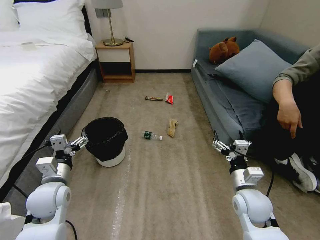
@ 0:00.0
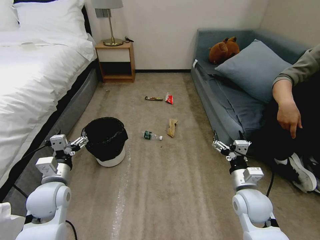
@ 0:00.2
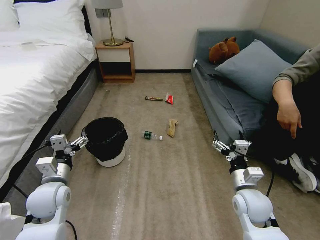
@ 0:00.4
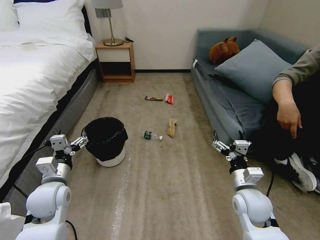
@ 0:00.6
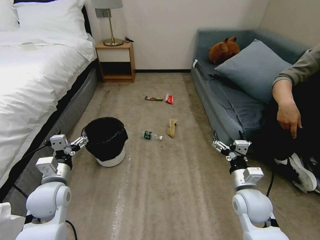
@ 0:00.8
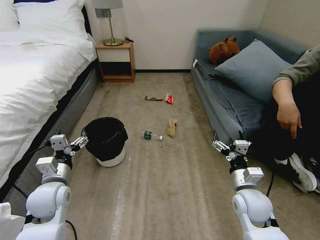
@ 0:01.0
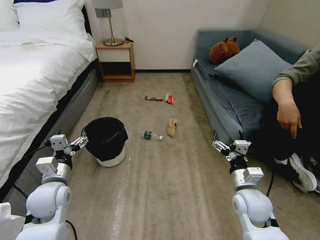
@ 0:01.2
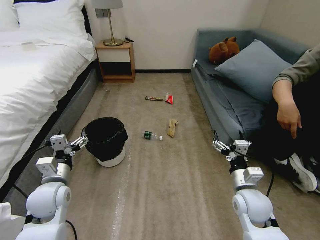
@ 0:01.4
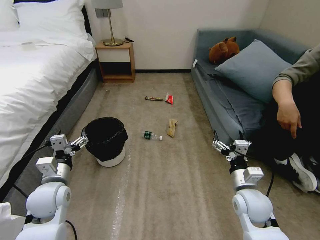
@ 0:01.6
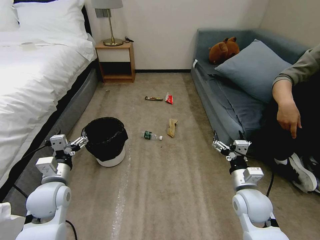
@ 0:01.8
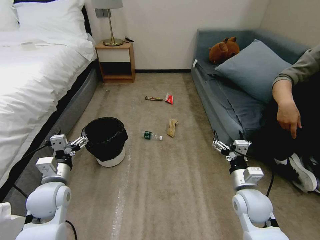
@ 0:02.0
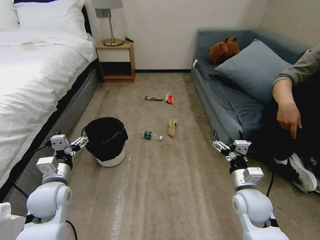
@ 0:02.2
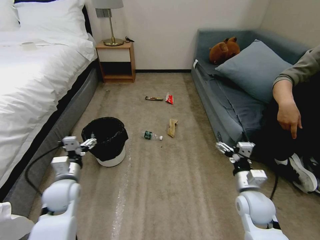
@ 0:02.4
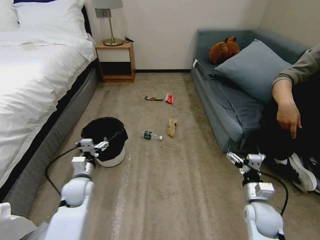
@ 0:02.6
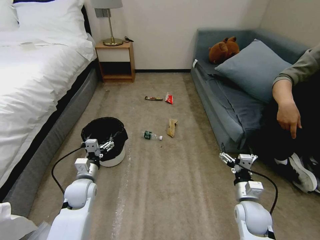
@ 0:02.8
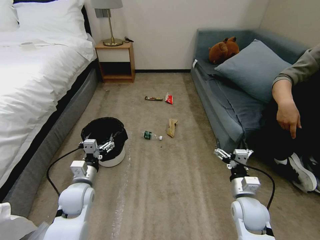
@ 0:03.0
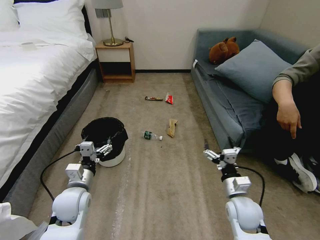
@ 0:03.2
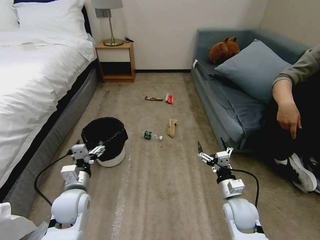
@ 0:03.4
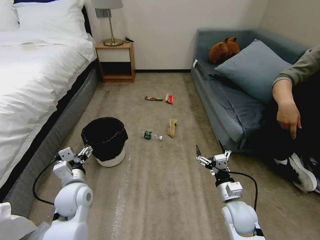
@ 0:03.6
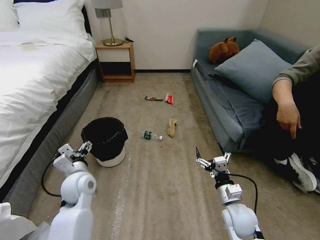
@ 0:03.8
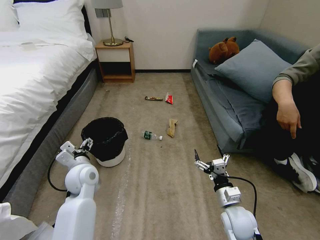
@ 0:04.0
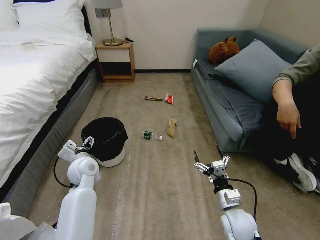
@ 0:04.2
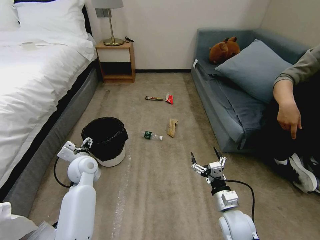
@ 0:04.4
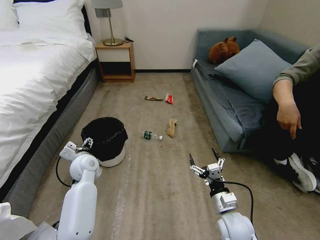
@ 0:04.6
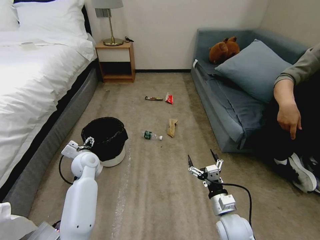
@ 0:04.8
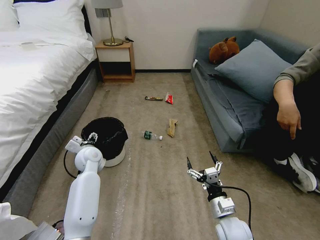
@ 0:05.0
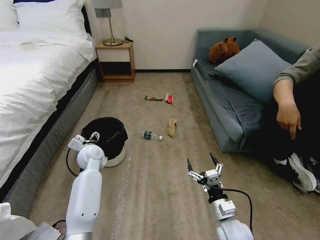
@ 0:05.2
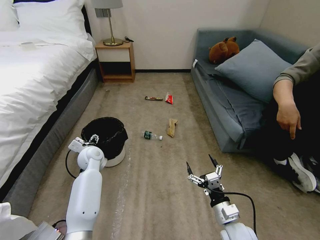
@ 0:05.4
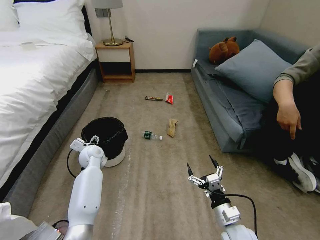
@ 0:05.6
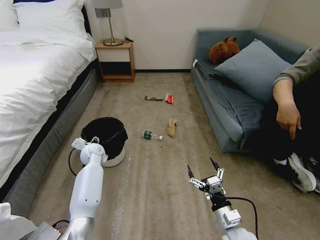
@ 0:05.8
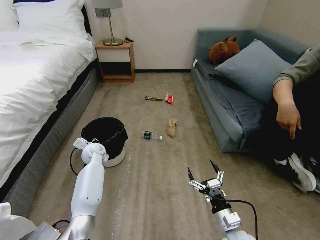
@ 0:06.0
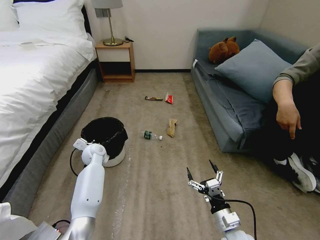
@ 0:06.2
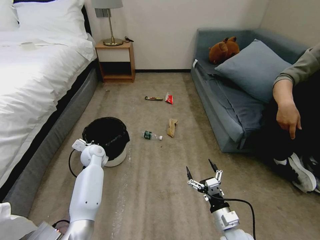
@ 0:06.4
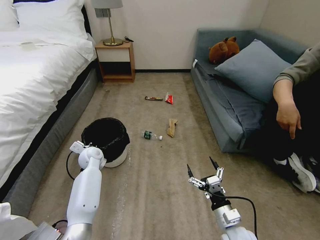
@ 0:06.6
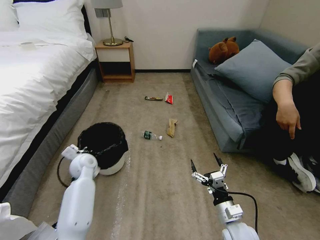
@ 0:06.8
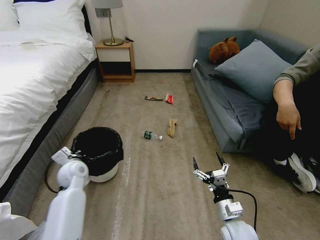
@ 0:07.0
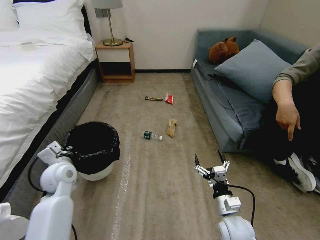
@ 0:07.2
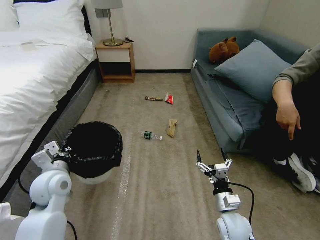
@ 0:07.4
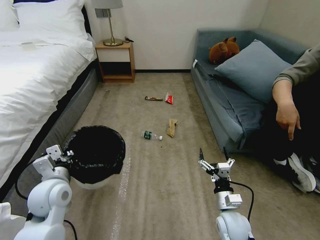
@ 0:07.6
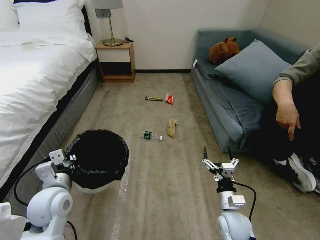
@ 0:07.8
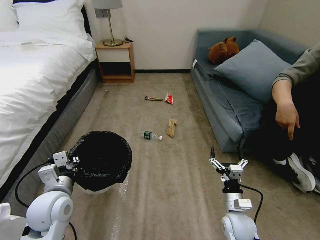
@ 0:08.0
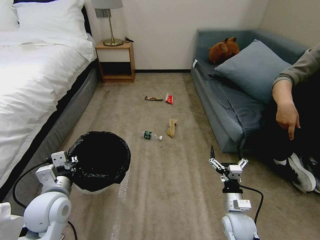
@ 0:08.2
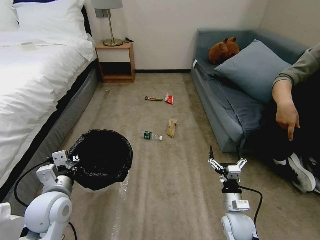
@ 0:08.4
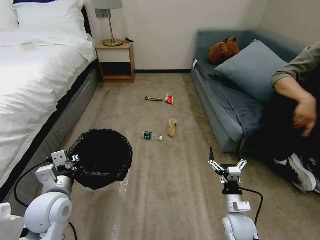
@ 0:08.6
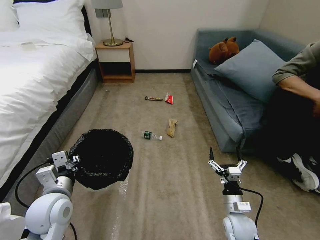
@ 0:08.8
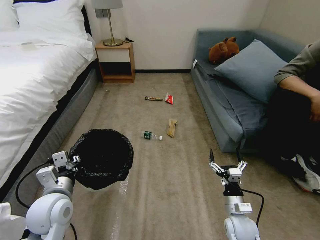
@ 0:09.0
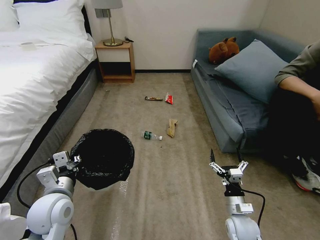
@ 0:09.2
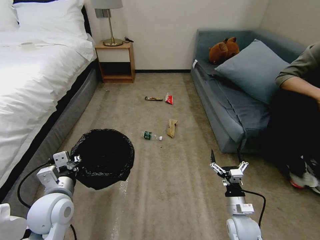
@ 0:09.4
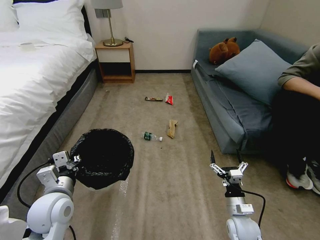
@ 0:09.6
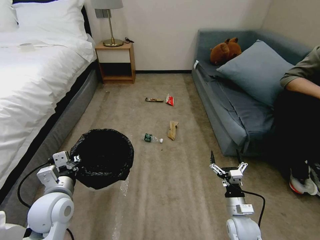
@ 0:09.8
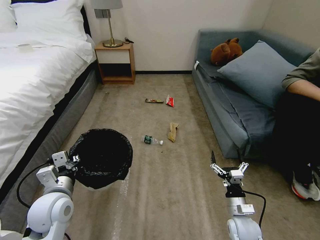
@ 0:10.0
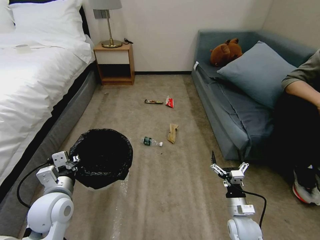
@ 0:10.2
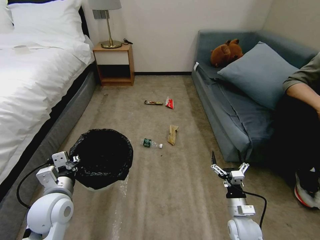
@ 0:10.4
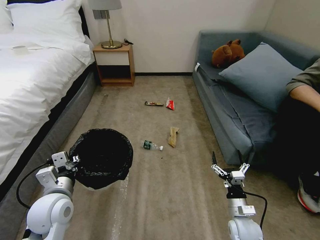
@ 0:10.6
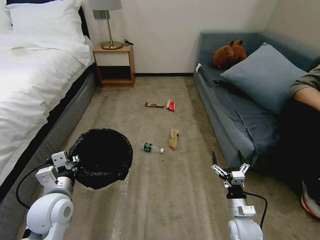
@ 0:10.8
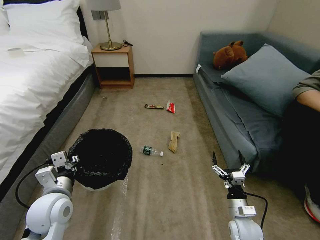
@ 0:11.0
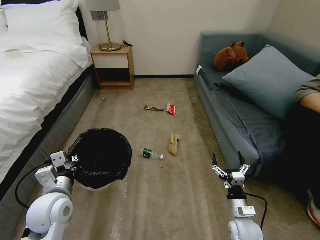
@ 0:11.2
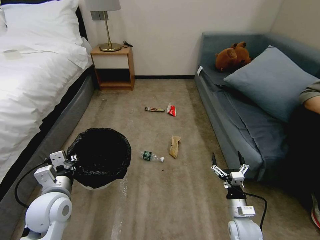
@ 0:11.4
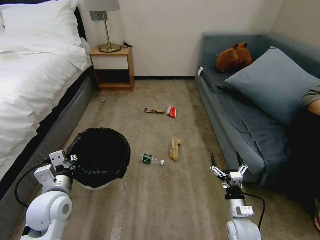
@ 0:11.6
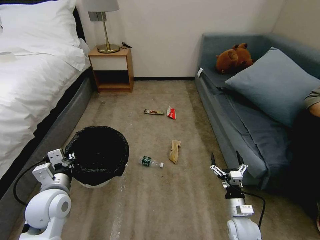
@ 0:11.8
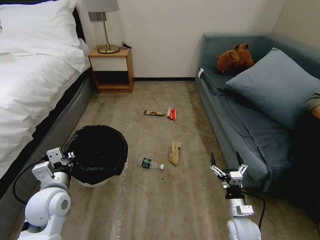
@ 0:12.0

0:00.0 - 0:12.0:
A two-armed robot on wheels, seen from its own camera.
Task of the whole recording: Pick up the trash bin, then pick up the garbage on the floor and place it into the trash bin.
0:01.6 - 0:03.0: The left gripper goes some 5 cm to the right and downward.
0:03.0 - 0:04.4: The right gripper shifts by about 5 cm; the left gripper travels forward by roughly 10 cm.
0:04.4 - 0:06.0: The right gripper goes about 5 cm backward; the left gripper goes roughly 10 cm forward and downward, and closes its fingers.
0:06.0 - 0:07.6: The right gripper shifts some 5 cm forward; the left gripper moves backward and upward, about 25 cm, and closes.
0:07.6 - 0:09.0: The grippers stay close to where they were, moving slightly.
0:09.0 - 0:10.4: There are only small adjustments of the grippers.

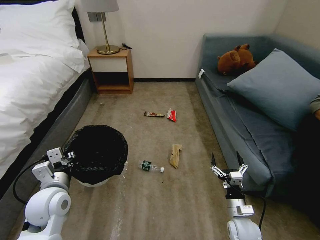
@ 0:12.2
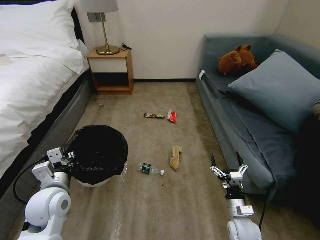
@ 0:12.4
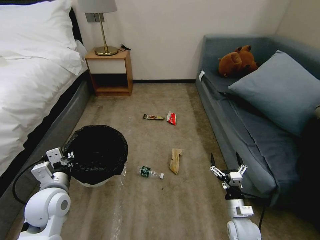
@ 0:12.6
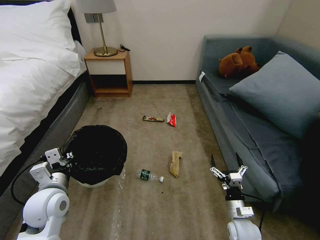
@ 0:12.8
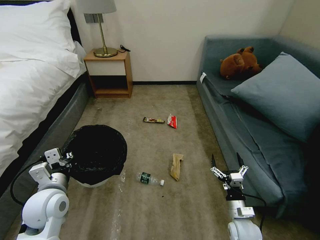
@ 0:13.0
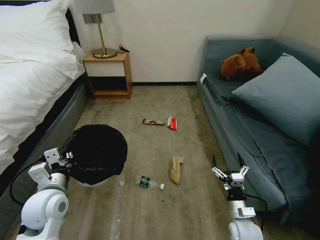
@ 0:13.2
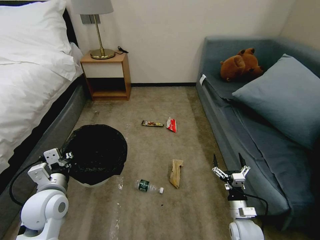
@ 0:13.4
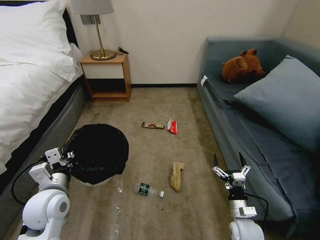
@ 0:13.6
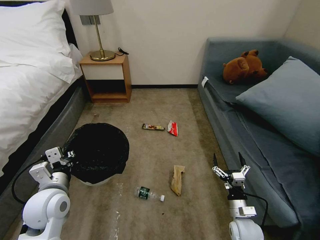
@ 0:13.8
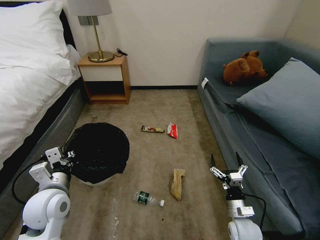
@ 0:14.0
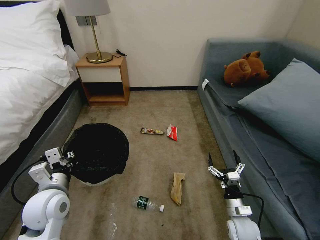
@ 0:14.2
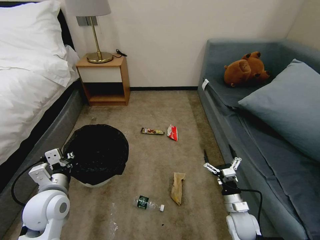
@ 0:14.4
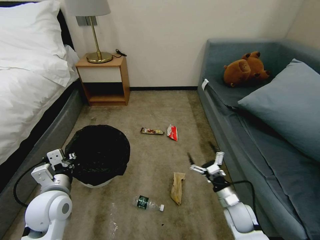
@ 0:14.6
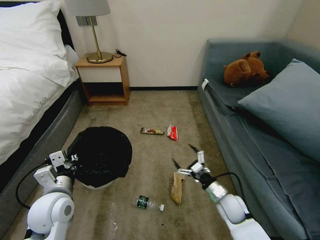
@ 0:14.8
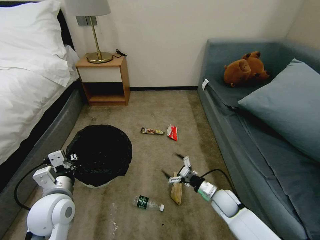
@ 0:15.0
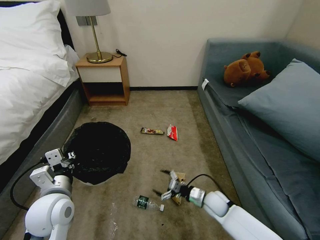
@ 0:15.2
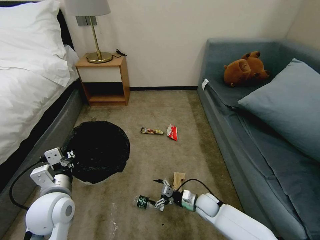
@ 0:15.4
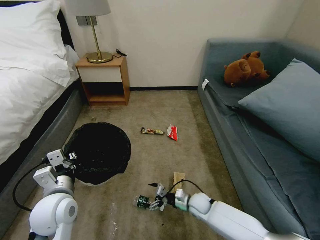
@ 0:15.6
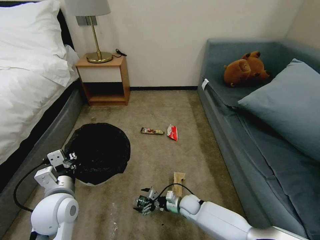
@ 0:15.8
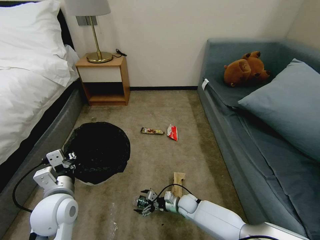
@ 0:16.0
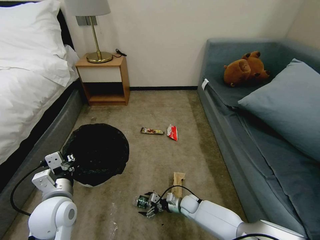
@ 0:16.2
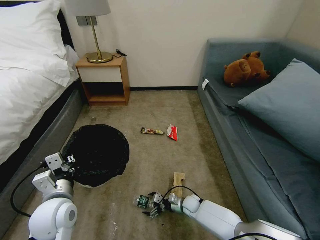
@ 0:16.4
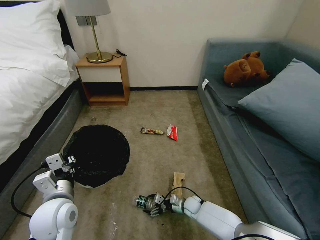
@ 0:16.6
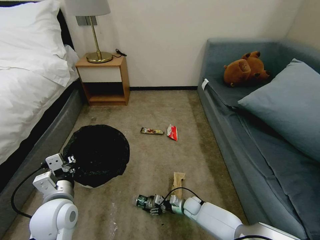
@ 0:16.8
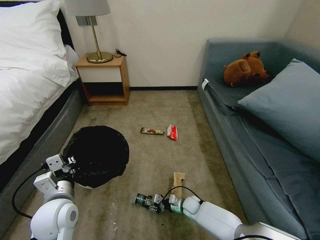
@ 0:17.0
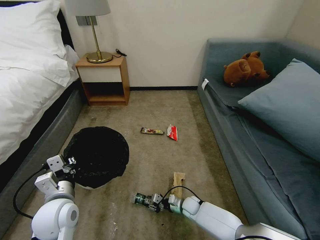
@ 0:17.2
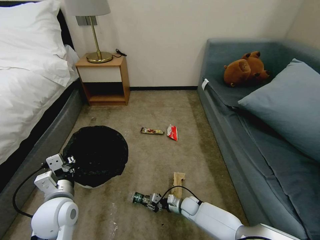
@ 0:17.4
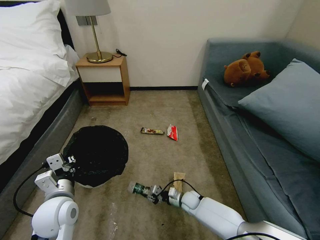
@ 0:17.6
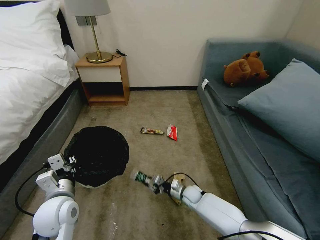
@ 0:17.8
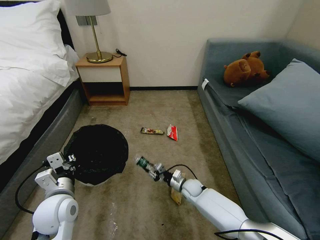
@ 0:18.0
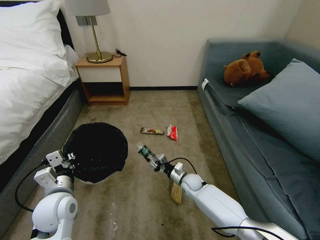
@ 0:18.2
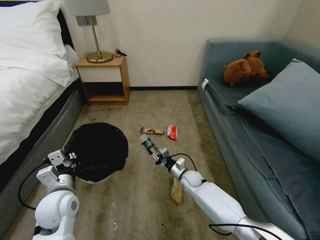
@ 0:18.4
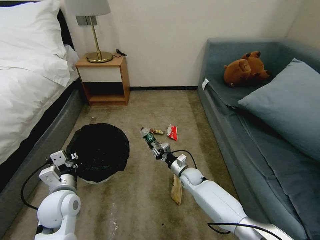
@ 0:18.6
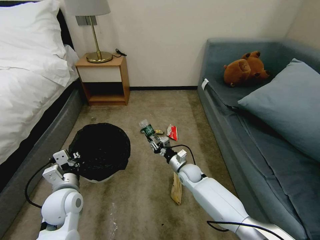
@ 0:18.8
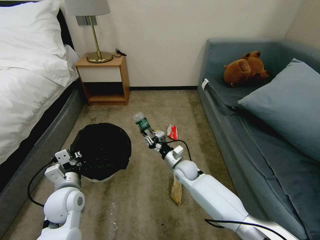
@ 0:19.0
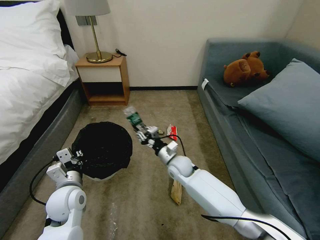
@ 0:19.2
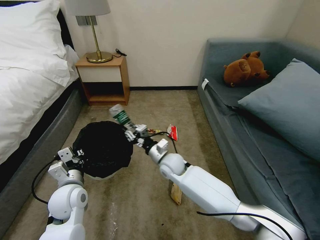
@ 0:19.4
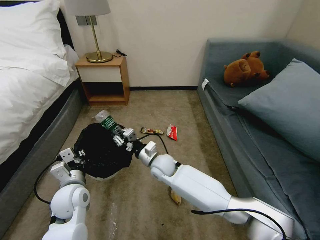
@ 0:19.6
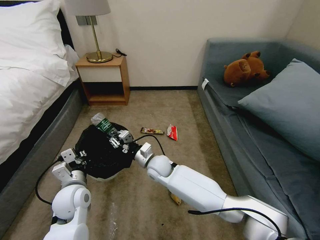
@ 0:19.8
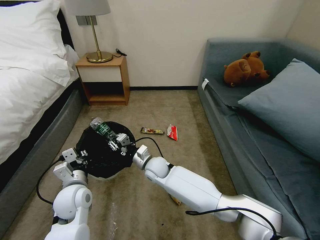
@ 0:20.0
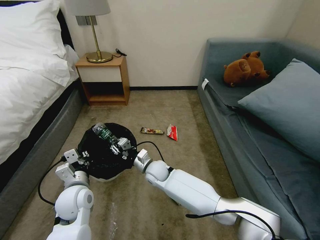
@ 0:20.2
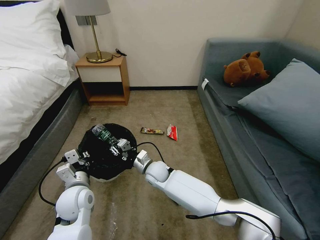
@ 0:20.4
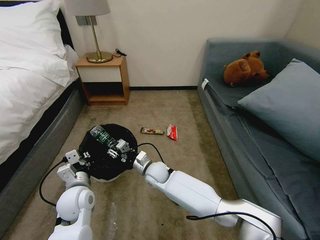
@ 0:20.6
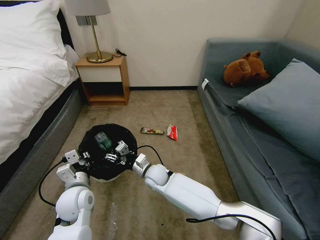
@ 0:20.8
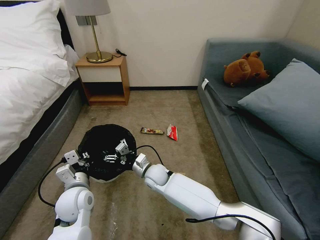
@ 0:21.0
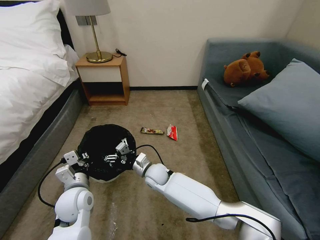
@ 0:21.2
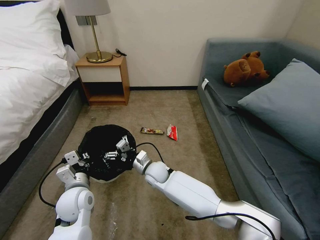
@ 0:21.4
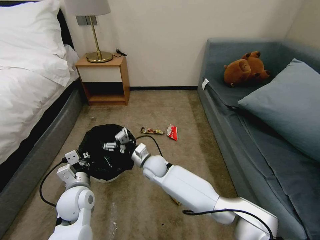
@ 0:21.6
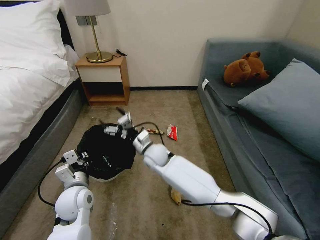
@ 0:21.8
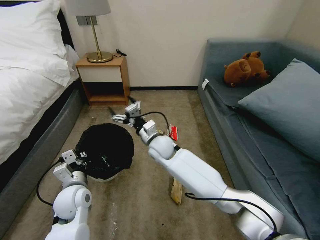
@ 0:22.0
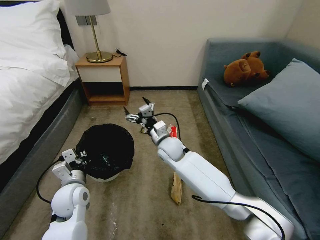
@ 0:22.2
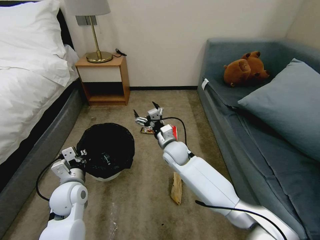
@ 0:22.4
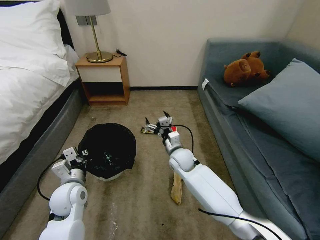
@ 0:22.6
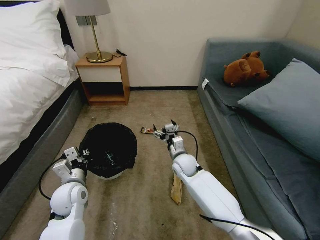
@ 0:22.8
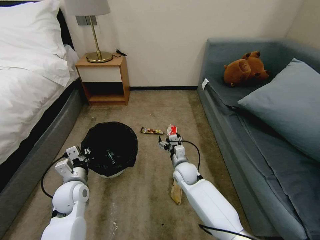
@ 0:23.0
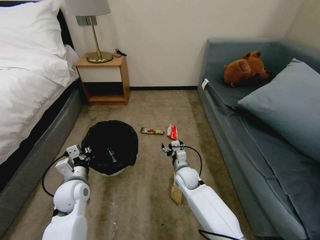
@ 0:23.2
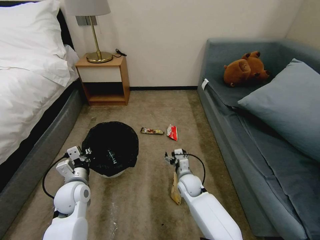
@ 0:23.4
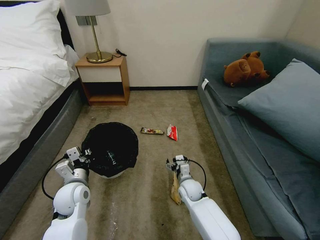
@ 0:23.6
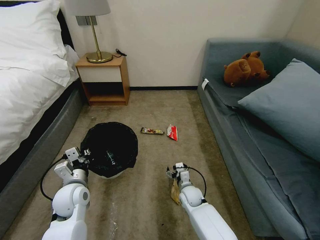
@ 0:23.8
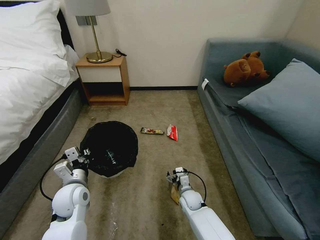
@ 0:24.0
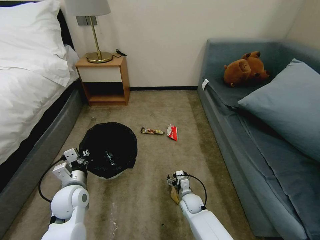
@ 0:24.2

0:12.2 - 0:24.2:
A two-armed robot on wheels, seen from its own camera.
Task of the whole recording: Pick up the trash bin, then pick up the garbage on the floor and place it into the trash bin.
0:13.8 - 0:15.2: The right gripper heads forward and to the left, covering roughly 10 cm.
0:15.2 - 0:16.6: The right gripper is displaced downward and to the left by approximately 15 cm.
0:16.6 - 0:18.2: The right gripper heads upward and forward, covering roughly 10 cm, and closes.
0:18.2 - 0:19.8: The right gripper shifts approximately 20 cm to the left and upward. Meanwhile the left gripper moves some 5 cm.
0:19.8 - 0:21.2: The right gripper opens up.
0:21.2 - 0:22.6: The right gripper moves to the right and upward, some 10 cm.
0:22.6 - 0:24.2: The right gripper moves downward and backward, some 25 cm.
